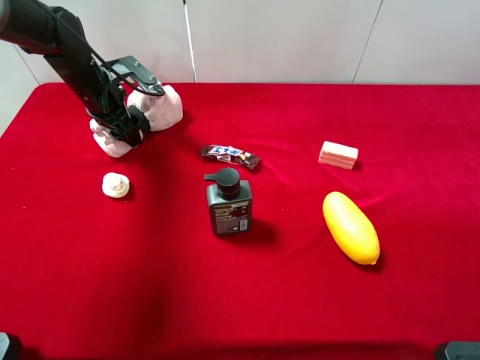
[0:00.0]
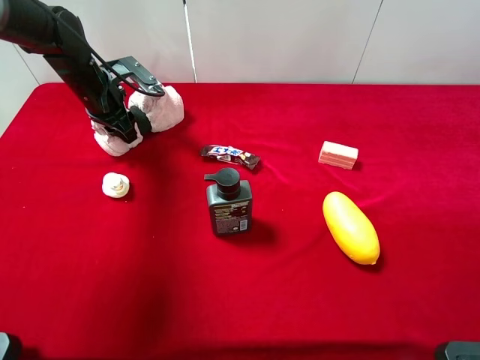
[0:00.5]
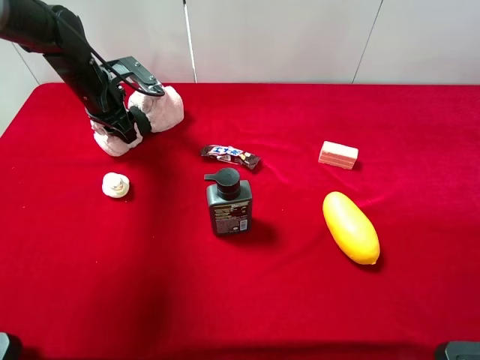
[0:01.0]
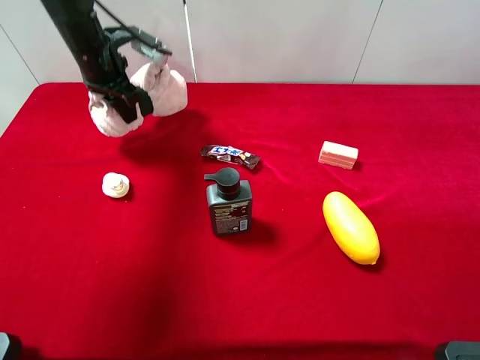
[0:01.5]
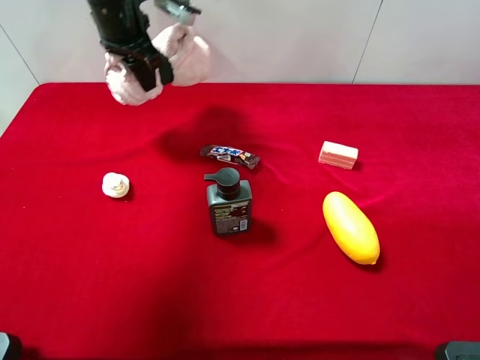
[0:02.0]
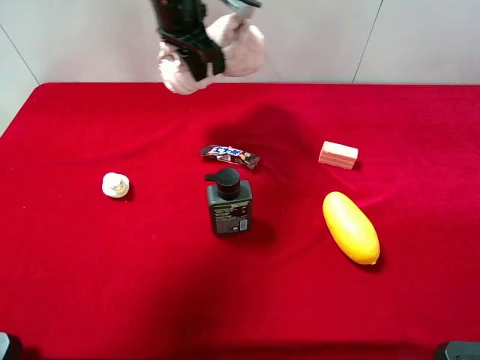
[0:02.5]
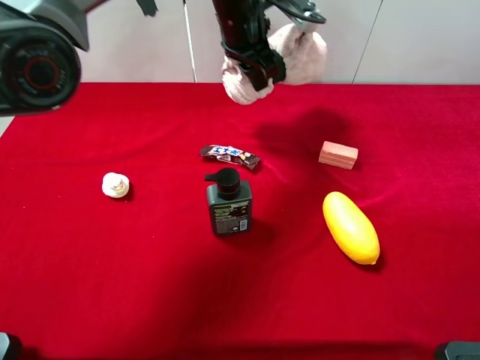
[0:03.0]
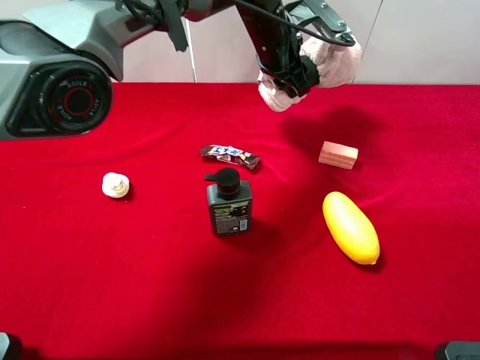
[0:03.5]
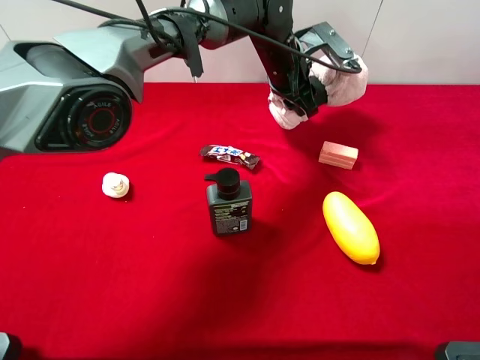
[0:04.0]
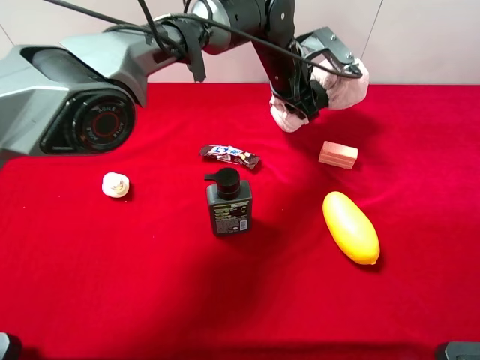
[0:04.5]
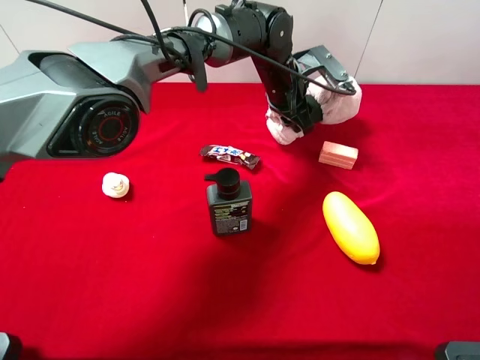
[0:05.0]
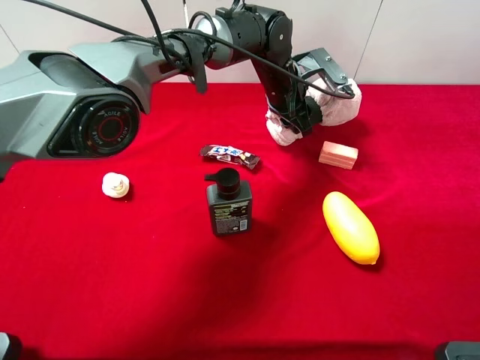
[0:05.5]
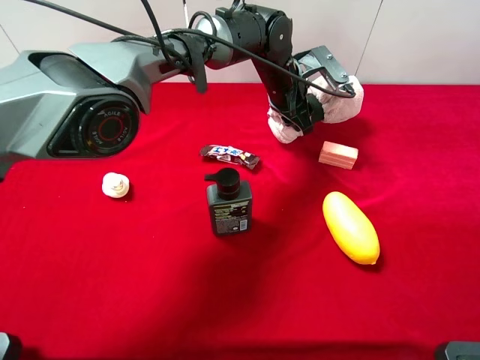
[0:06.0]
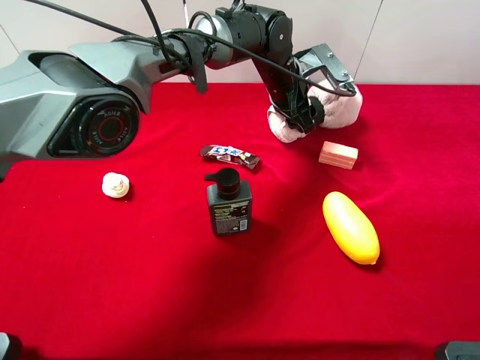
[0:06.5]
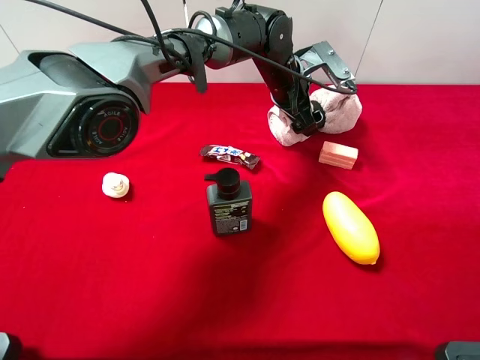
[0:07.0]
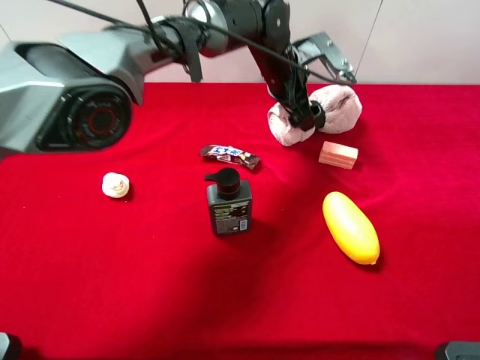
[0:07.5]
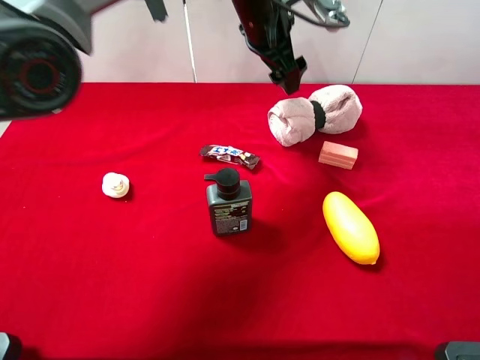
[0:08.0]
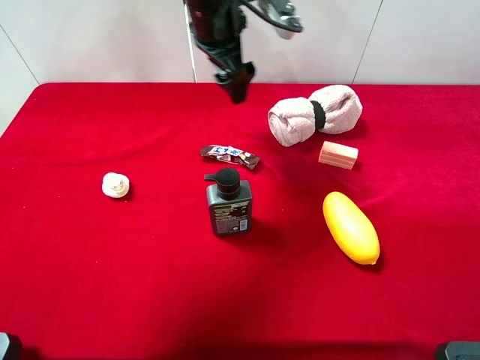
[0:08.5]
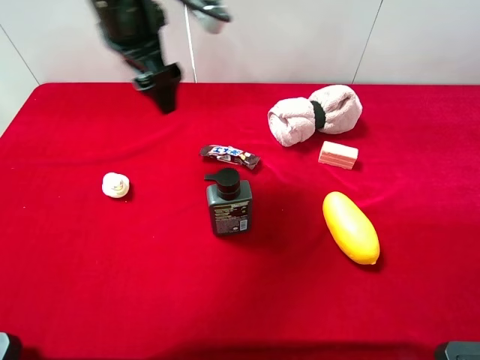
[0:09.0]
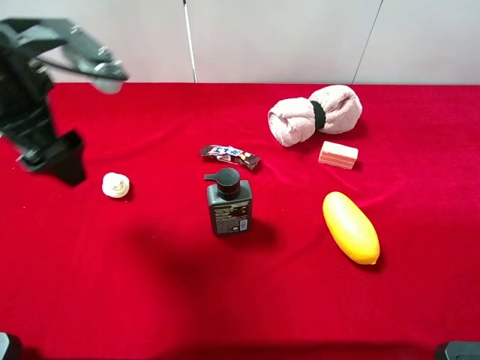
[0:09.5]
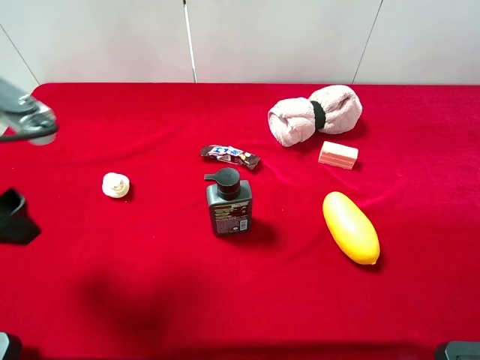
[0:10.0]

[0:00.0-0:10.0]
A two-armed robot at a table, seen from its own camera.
Task of the whole recording: the gripper move the object.
Step, 0:00.5 to 0:07.5: Place the pink towel on the table with the left gripper.
0:00.0 to 0:02.0: The left gripper heads upward and to the right, covering some 15 cm, and closes up.
0:02.0 to 0:04.0: The left gripper goes roughly 25 cm to the right.
0:04.0 to 0:06.0: The grippers stay close to where they were, moving slightly.
0:06.0 to 0:08.0: The left gripper shifts approximately 10 cm upward, and opens.
0:08.0 to 0:10.0: The left gripper goes roughly 40 cm backward and to the left.

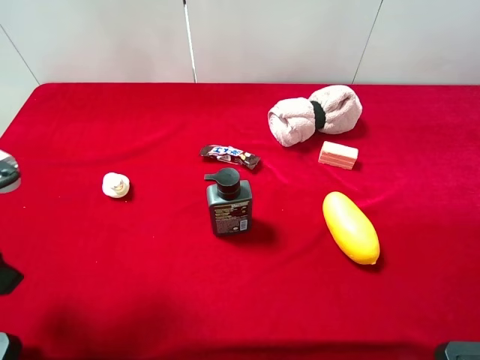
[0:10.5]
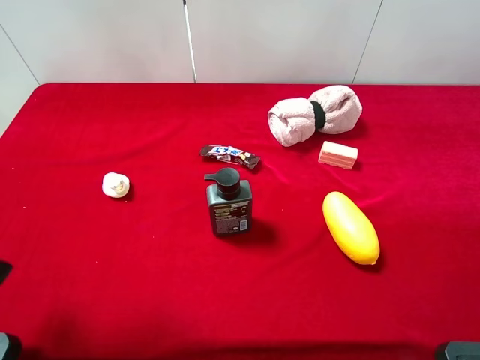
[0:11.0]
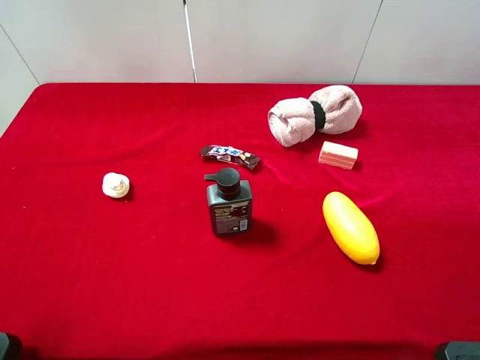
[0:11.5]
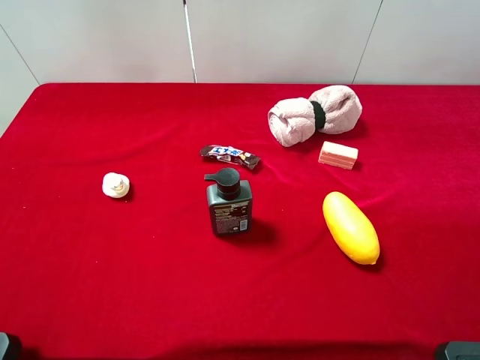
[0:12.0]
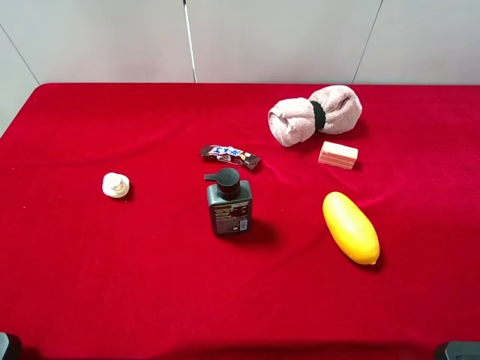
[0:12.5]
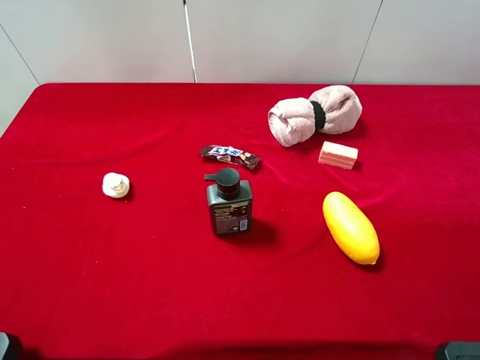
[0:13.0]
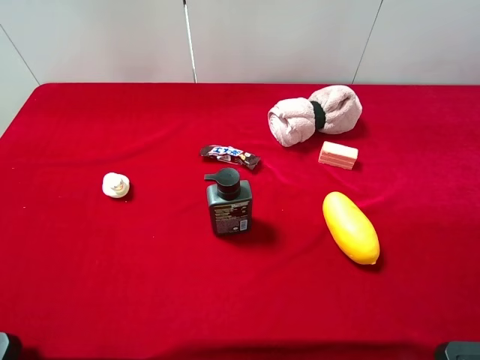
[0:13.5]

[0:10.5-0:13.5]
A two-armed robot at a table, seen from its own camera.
Task of the whole recording: the gripper move the object.
0:10.5 to 0:12.0: The left gripper moves backward, approximately 10 cm.
